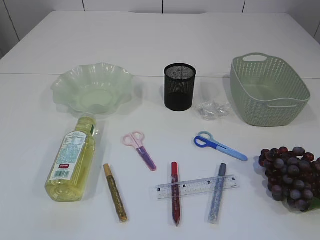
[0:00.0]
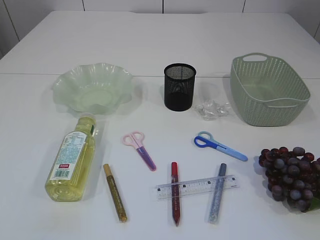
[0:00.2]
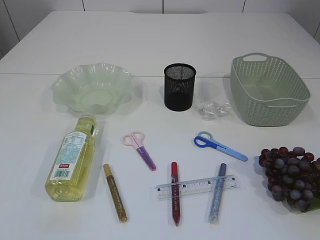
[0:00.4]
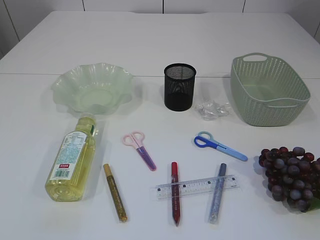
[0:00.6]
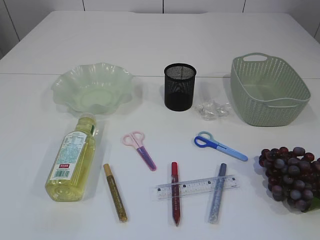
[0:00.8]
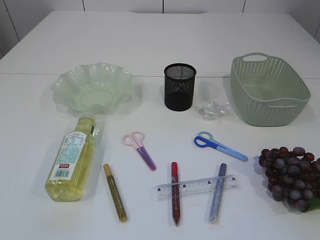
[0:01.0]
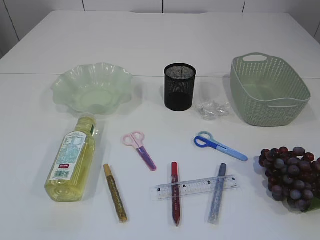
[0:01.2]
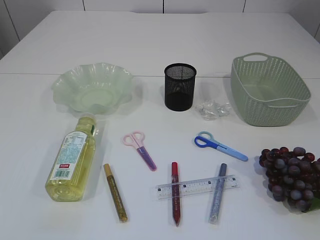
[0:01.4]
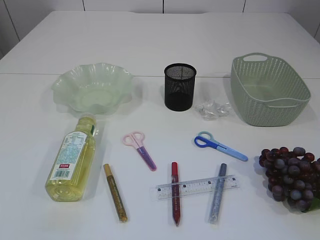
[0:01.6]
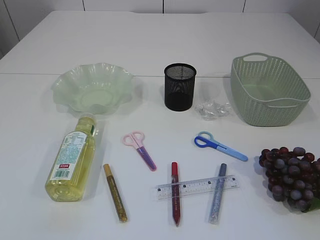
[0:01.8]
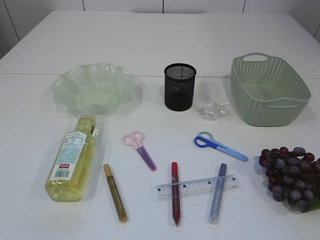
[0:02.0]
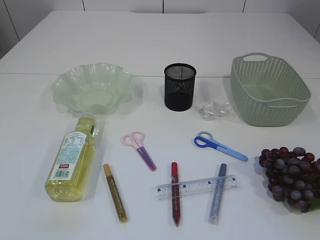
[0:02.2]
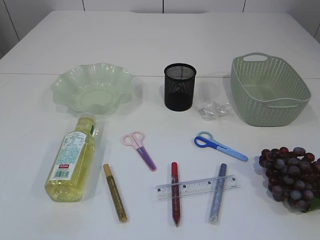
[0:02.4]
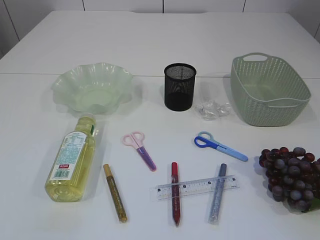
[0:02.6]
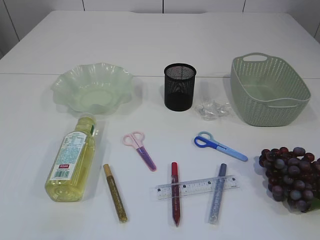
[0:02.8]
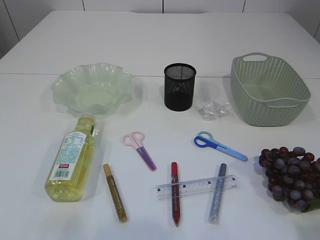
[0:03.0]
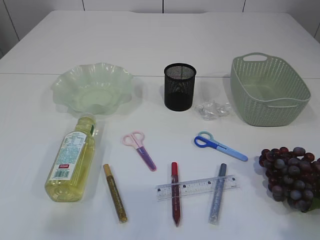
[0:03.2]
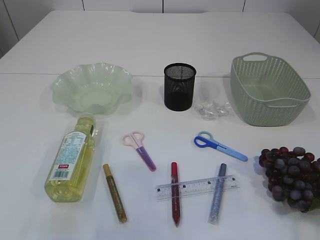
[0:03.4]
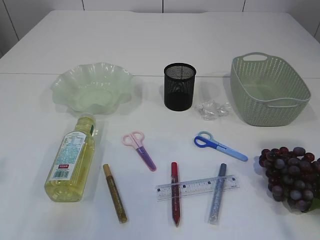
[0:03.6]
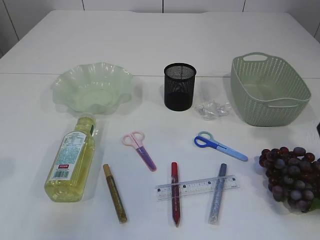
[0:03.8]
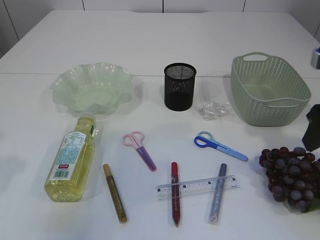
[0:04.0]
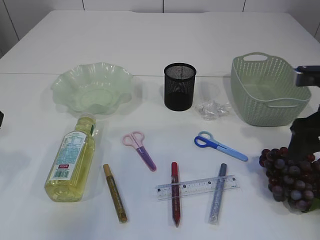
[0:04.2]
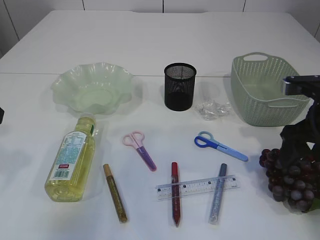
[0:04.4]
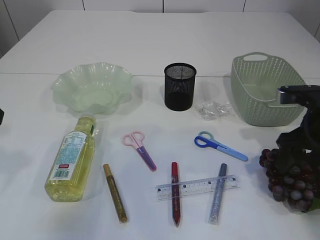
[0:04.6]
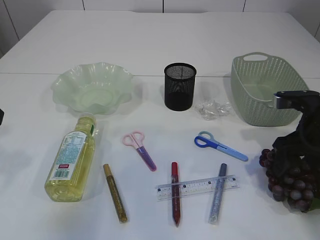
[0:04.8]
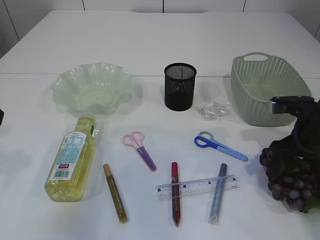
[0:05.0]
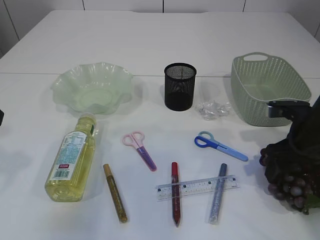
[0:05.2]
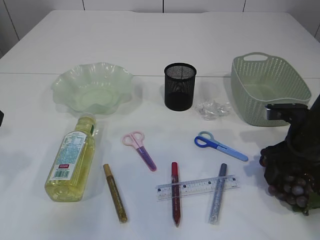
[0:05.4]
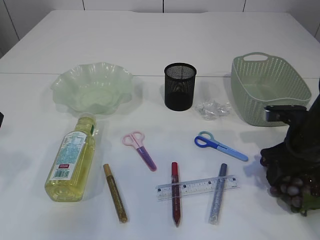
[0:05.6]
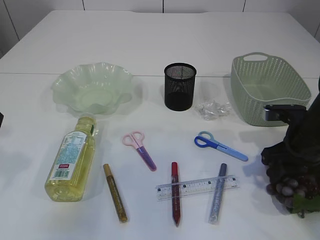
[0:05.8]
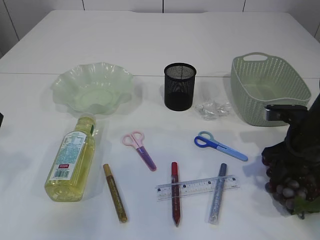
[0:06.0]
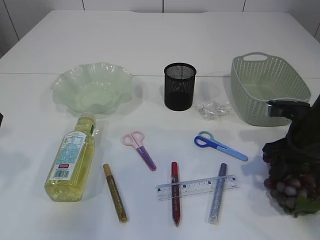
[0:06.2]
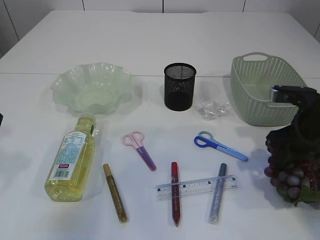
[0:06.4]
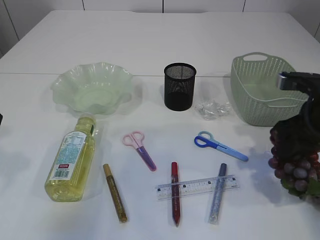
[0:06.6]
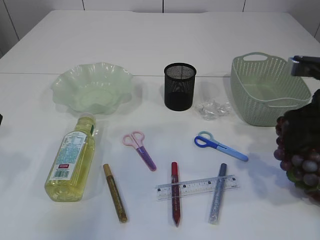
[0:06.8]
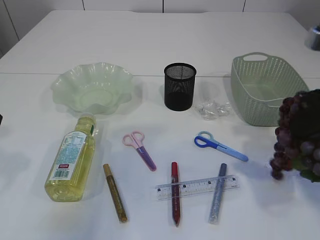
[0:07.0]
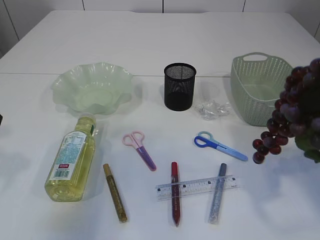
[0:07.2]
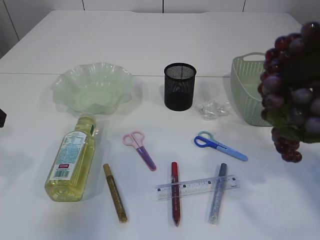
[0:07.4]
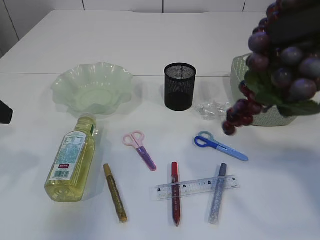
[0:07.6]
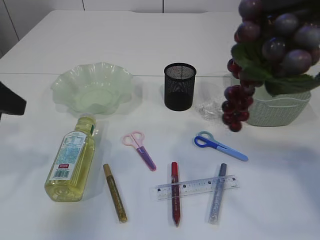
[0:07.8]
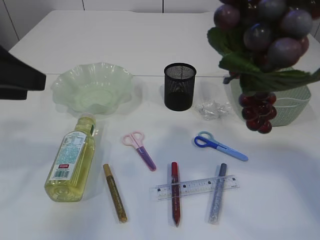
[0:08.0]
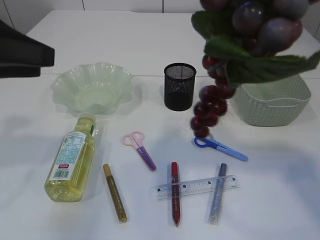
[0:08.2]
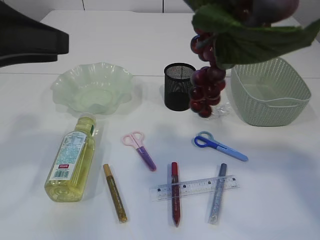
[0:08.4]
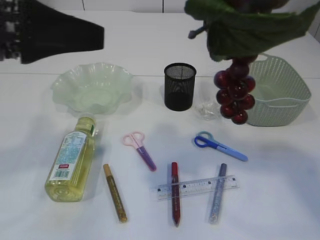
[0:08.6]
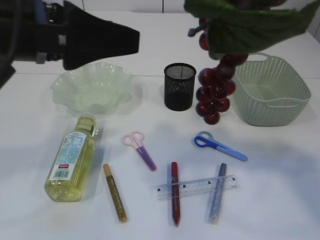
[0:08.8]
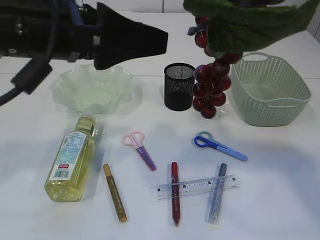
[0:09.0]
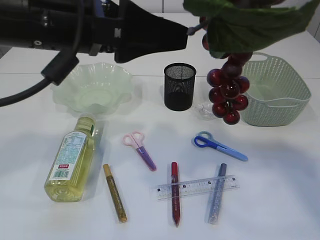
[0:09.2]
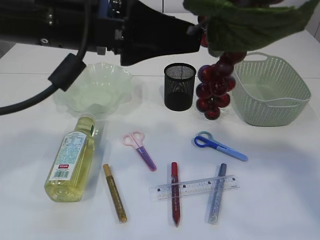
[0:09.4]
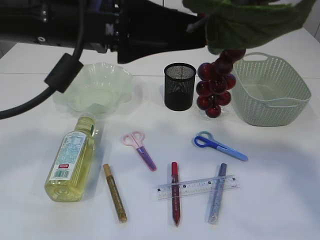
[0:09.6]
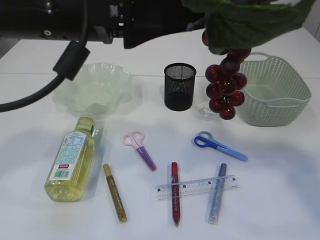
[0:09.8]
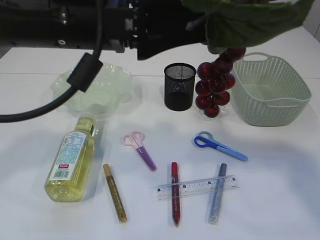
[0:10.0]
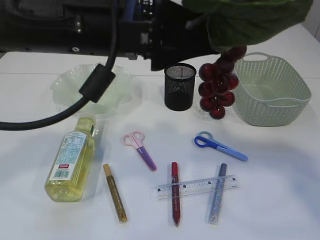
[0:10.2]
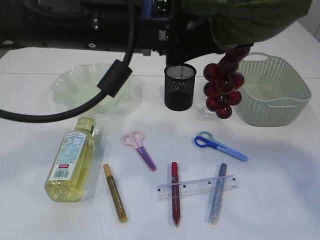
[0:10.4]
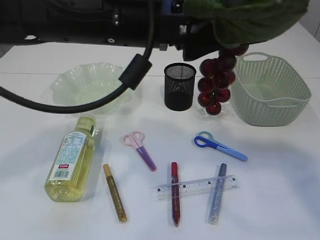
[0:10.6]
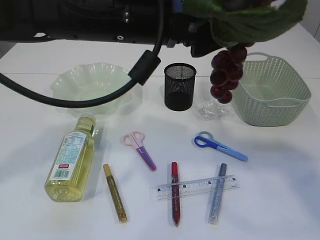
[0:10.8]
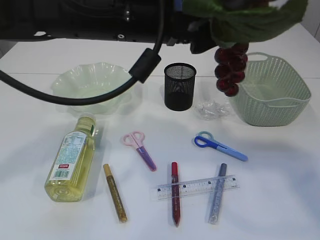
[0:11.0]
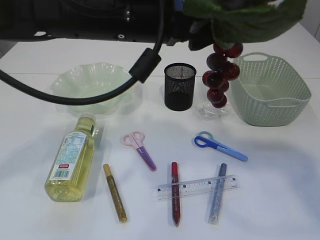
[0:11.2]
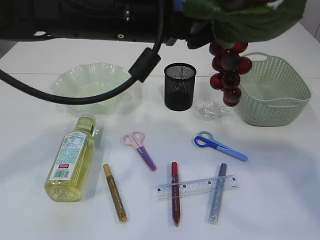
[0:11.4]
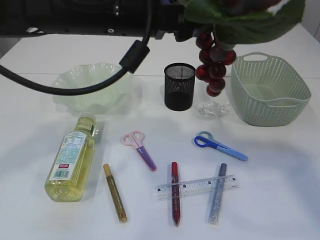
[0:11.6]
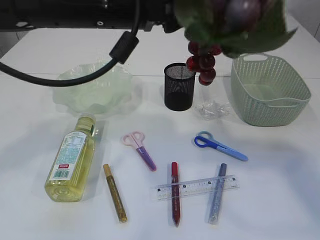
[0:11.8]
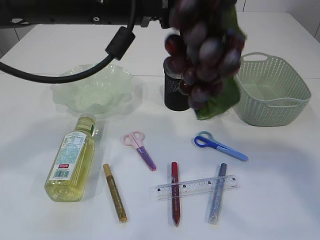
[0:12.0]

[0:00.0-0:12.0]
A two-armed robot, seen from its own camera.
Step, 0:00.0 to 0:06.6: Pick up the grapes.
0:03.0 to 0:04.4: The two grippers go about 25 cm forward.
0:04.4 to 0:06.0: The right gripper goes roughly 5 cm downward, and closes.
0:06.0 to 0:07.6: The right gripper is displaced upward and backward by some 30 cm.
0:07.6 to 0:09.0: The left gripper moves to the right, some 15 cm; the right gripper shifts by some 5 cm.
0:09.0 to 0:10.4: The left gripper goes about 5 cm to the right.
0:10.4 to 0:12.0: The left gripper closes. Meanwhile the right gripper opens.

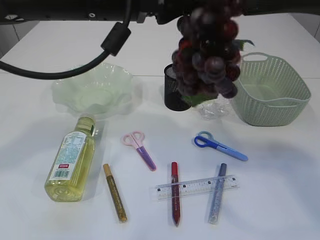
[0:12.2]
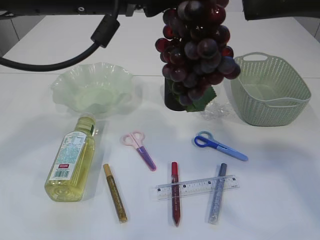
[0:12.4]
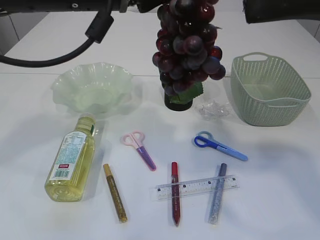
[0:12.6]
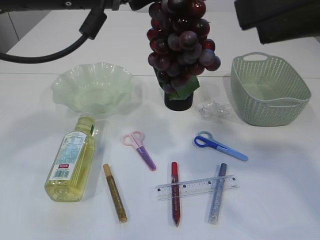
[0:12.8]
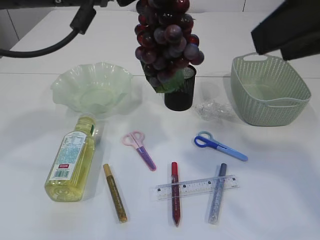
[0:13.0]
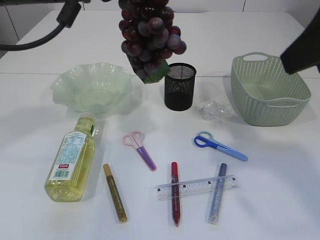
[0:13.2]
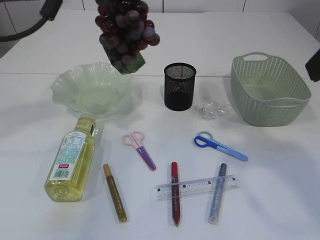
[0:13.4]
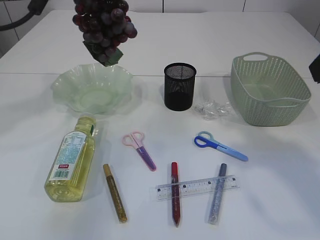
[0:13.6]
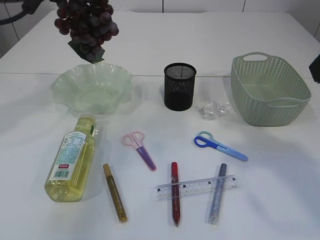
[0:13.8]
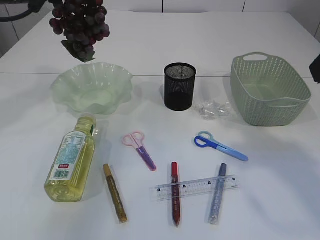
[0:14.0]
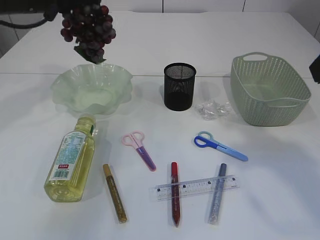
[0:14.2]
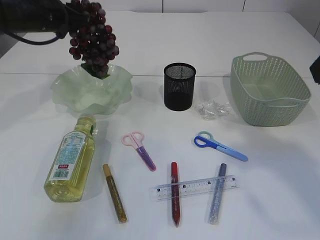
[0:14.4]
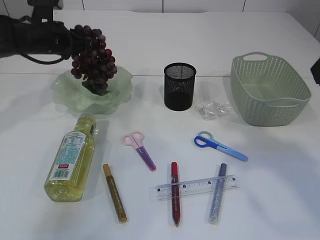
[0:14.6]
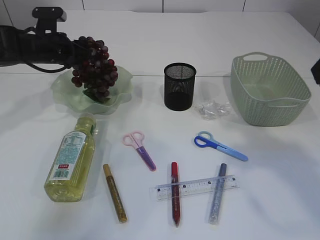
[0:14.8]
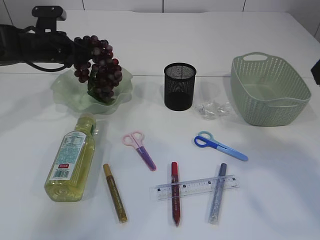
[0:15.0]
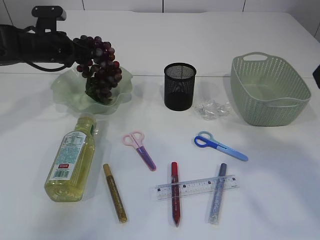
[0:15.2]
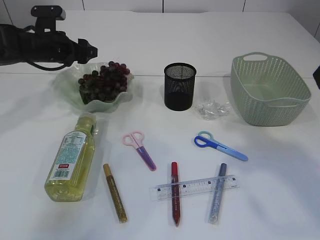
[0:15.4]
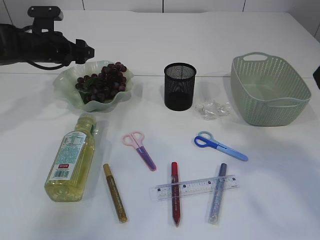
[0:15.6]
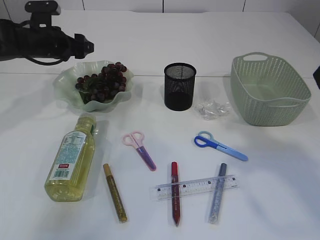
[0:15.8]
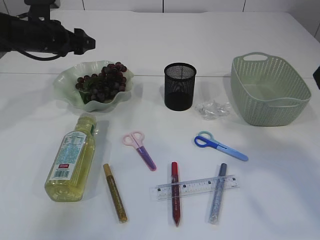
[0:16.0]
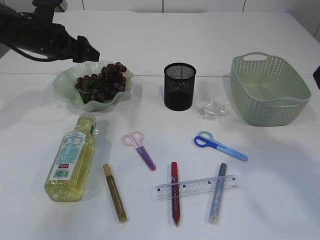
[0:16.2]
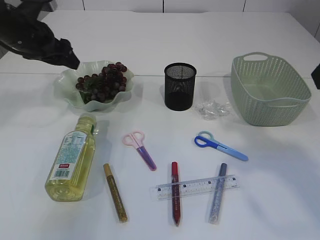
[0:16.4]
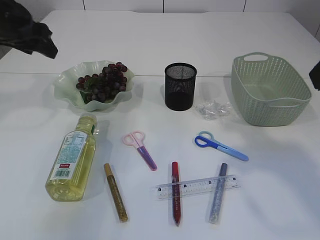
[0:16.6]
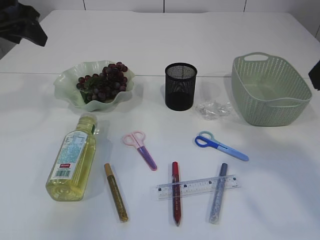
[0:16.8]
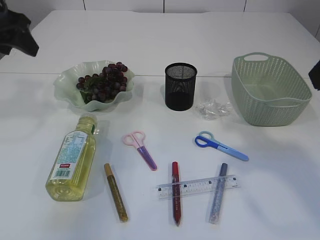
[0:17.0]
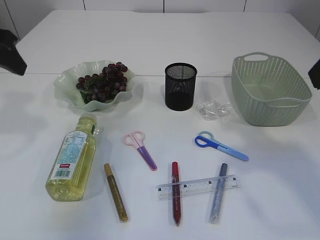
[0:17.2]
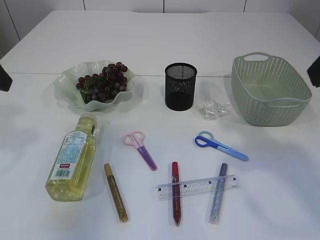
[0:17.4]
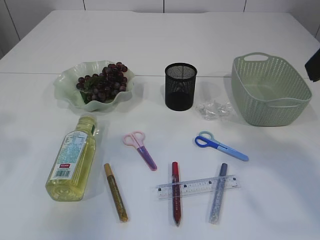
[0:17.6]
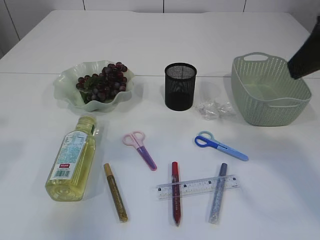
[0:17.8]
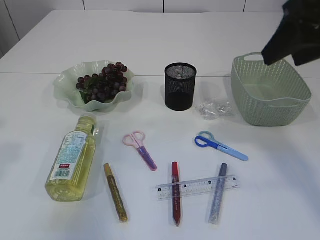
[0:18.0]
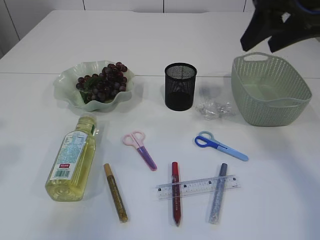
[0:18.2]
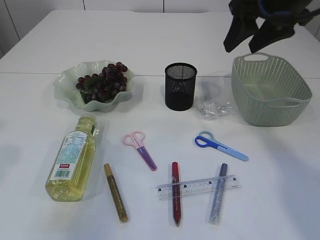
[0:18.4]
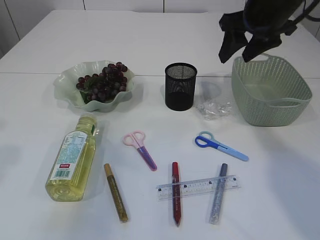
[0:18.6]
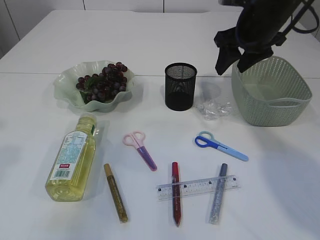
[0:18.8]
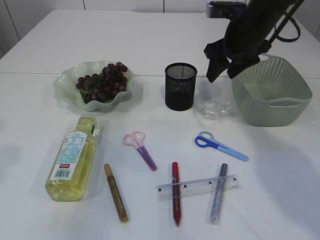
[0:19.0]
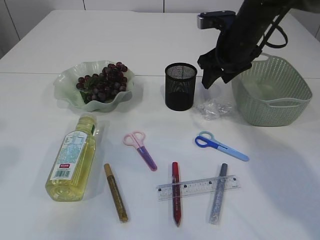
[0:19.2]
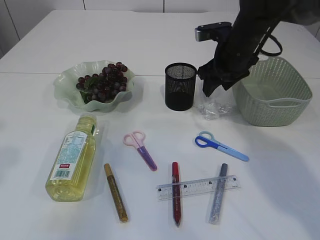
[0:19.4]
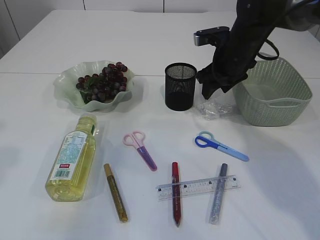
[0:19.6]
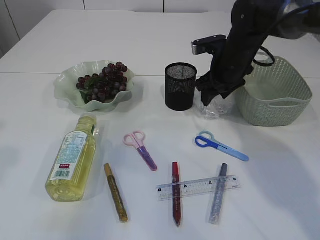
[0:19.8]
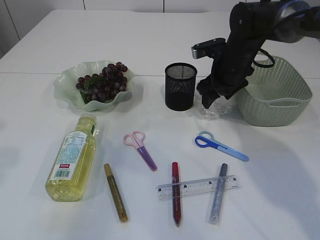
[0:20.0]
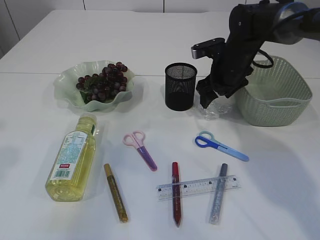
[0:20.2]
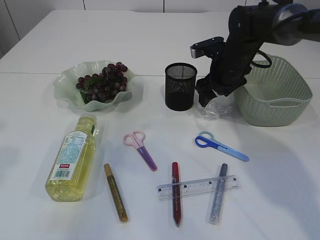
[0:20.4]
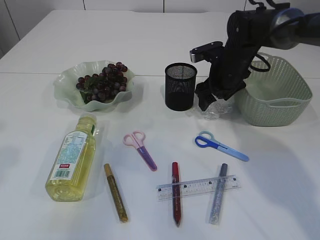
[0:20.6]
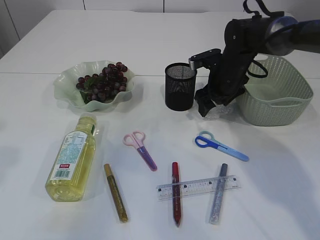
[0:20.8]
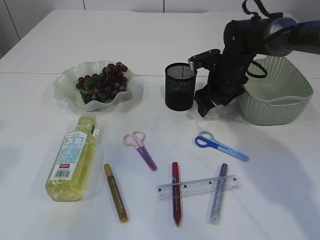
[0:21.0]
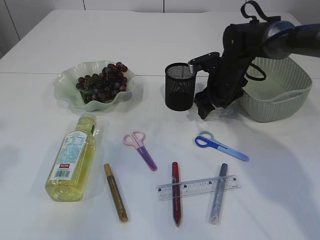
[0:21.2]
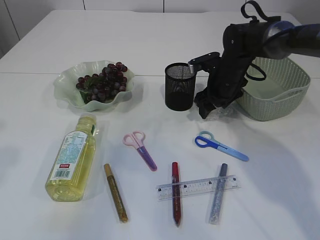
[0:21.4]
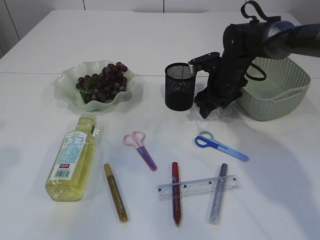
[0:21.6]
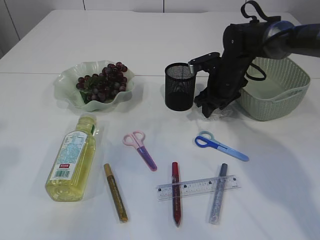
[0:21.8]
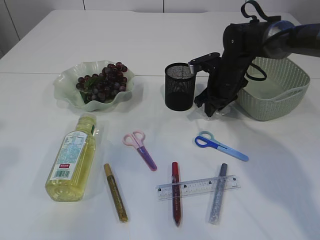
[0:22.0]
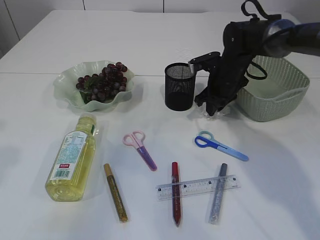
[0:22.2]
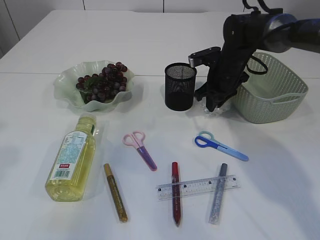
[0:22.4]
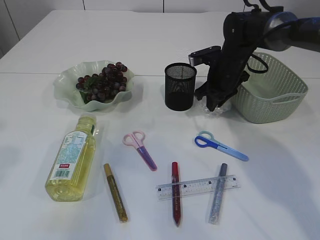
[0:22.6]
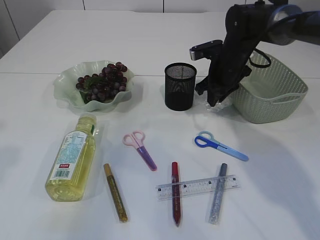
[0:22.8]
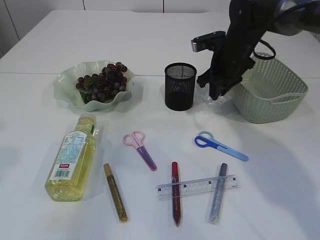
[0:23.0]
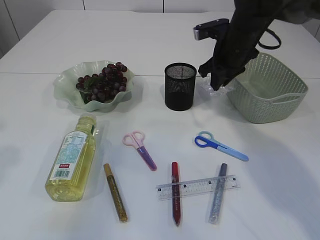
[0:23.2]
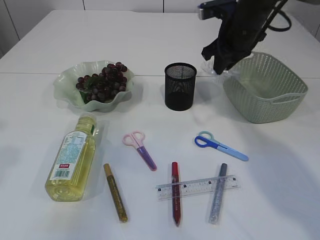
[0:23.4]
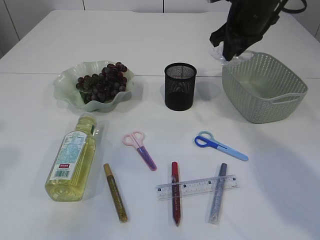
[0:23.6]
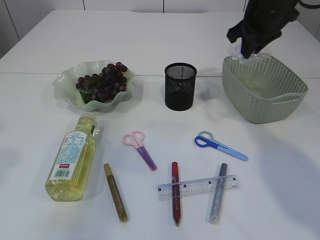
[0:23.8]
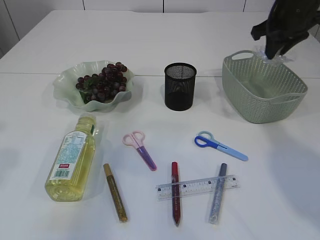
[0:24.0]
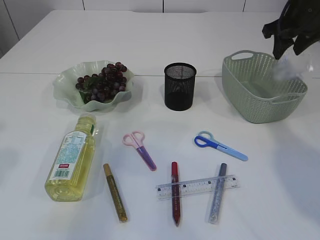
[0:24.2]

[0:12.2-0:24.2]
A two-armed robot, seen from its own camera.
Step, 0:12.6 to 0:15.8: Place the grapes in the plate.
Step, 0:16.0 to 0:23.2: Pick up the plastic.
0:12.2 to 0:13.8: The right gripper goes about 5 cm to the right. The left gripper goes about 20 cm to the left and forward.
0:13.8 to 0:15.2: The left gripper shifts about 20 cm downward and forward, and opens its fingers.
0:15.2 to 0:16.6: The left gripper moves upward and backward, approximately 15 cm.
0:16.6 to 0:18.2: The left gripper travels backward by roughly 20 cm. The right gripper goes approximately 10 cm forward.
0:18.2 to 0:19.8: The right gripper goes roughly 25 cm downward and forward.
0:19.8 to 0:21.2: The right gripper shifts by about 5 cm.
0:21.2 to 0:22.6: The right gripper closes.
0:22.6 to 0:24.2: The right gripper heads upward and to the right, covering approximately 20 cm, and opens.
